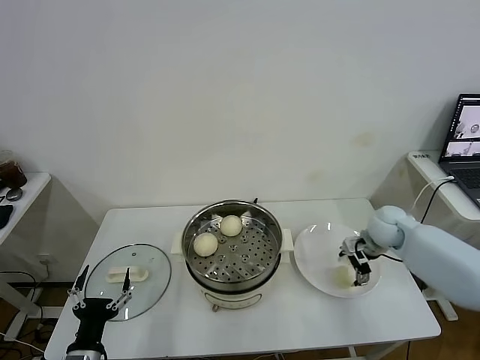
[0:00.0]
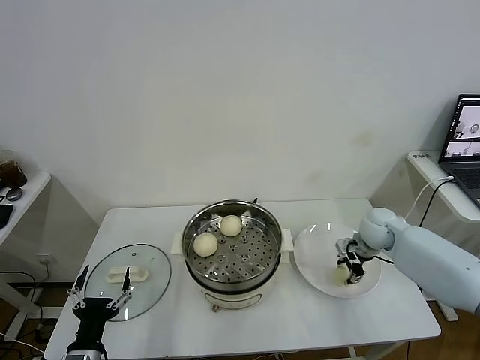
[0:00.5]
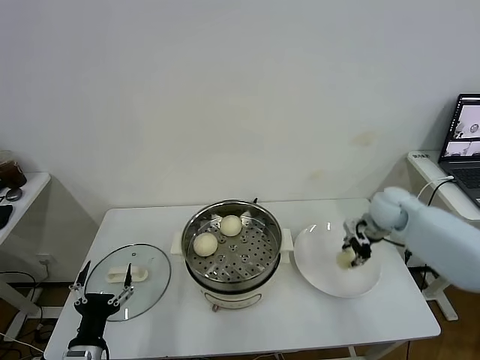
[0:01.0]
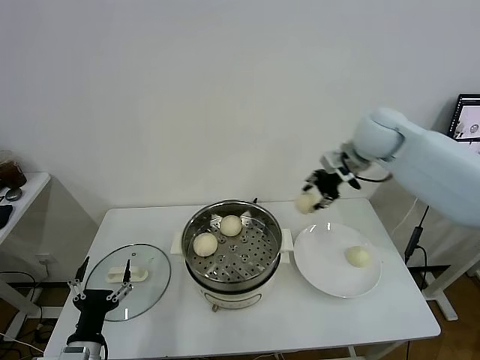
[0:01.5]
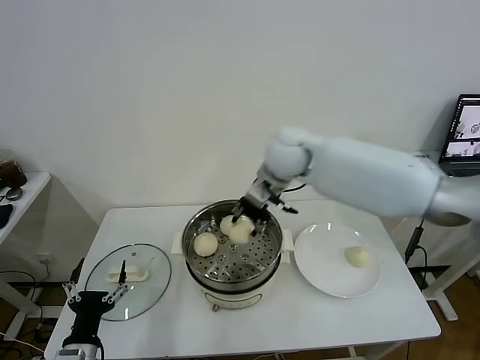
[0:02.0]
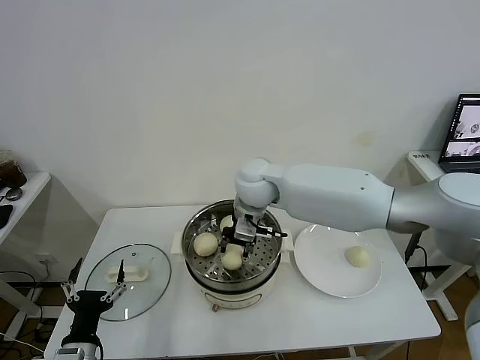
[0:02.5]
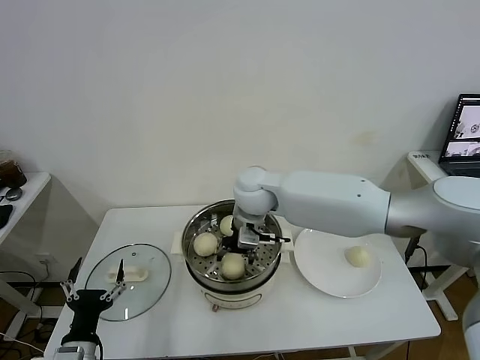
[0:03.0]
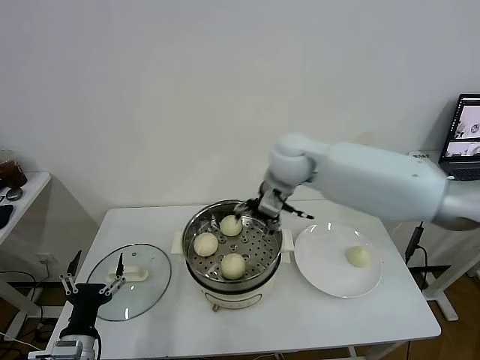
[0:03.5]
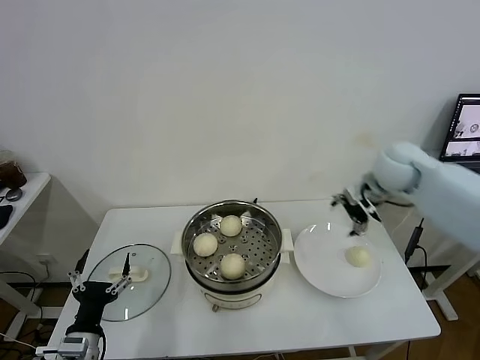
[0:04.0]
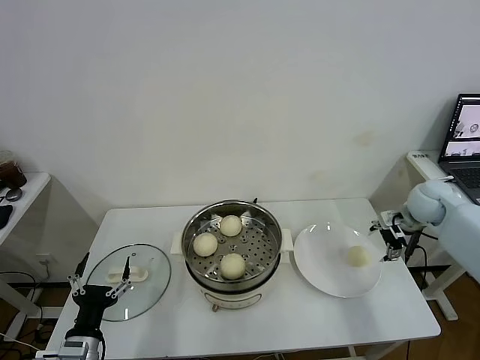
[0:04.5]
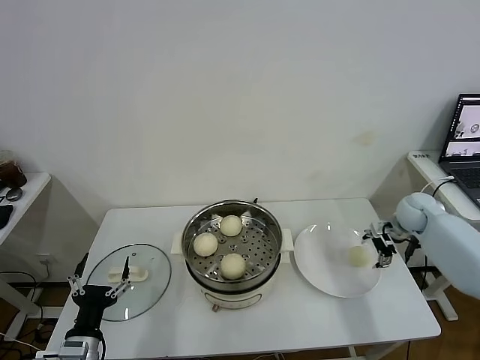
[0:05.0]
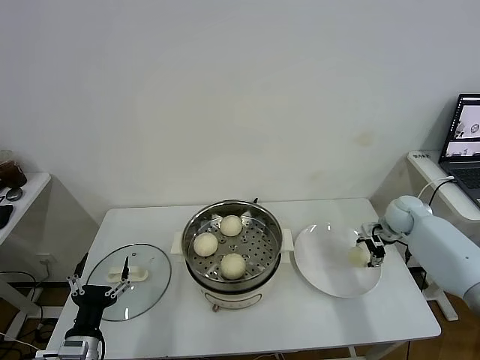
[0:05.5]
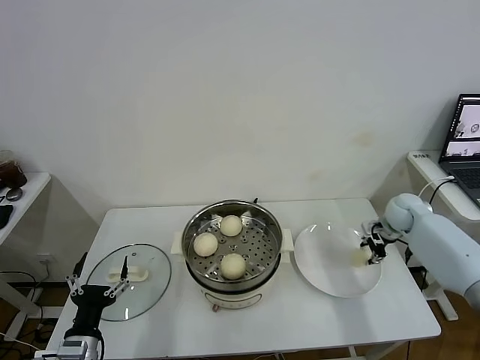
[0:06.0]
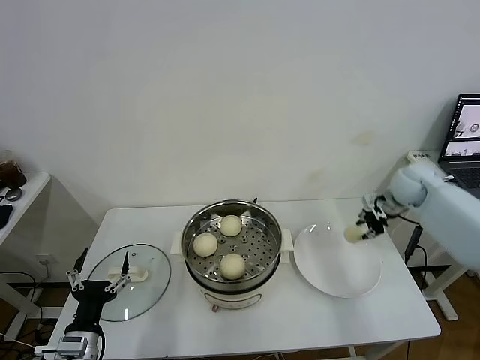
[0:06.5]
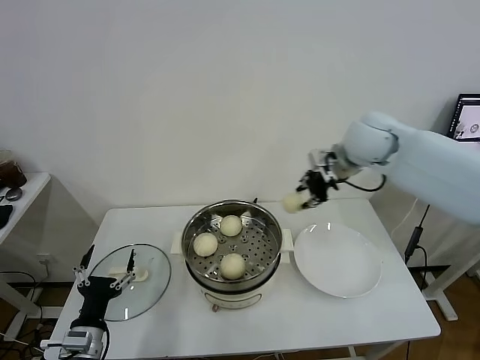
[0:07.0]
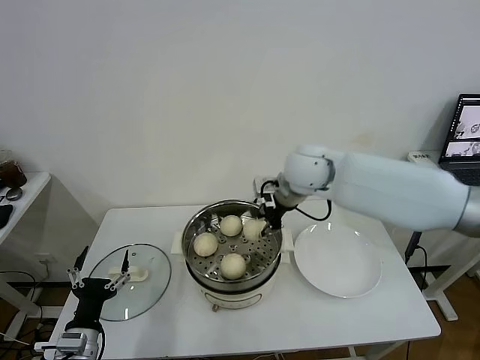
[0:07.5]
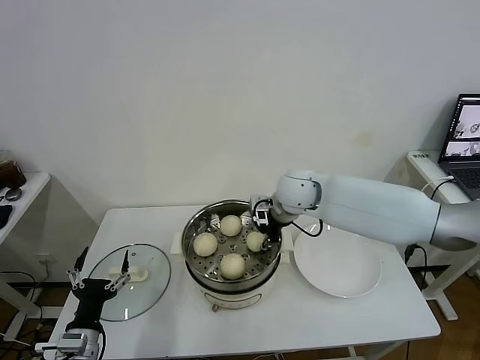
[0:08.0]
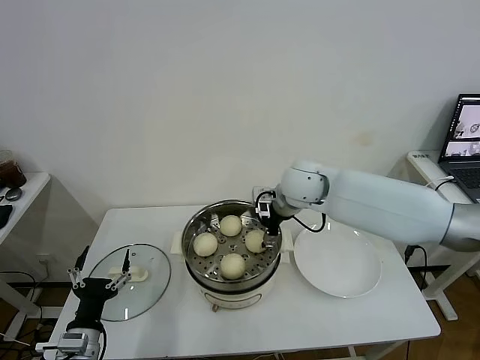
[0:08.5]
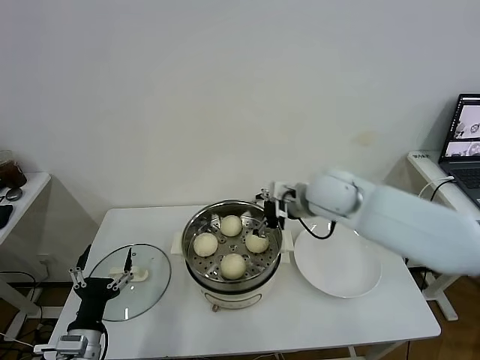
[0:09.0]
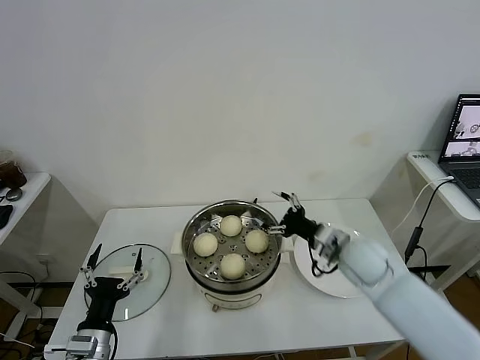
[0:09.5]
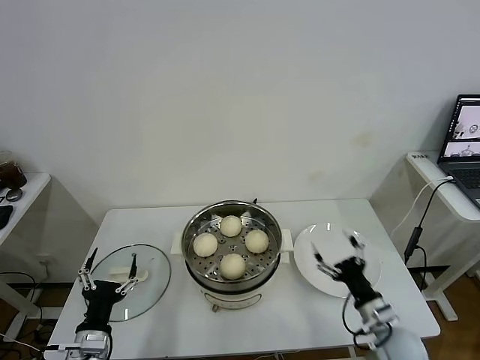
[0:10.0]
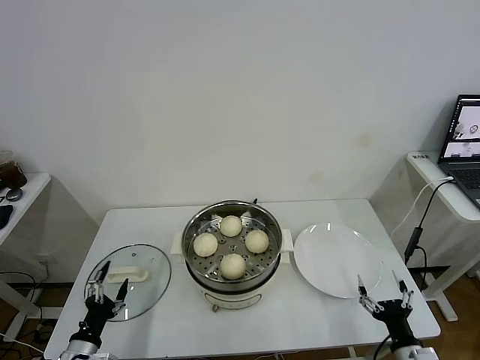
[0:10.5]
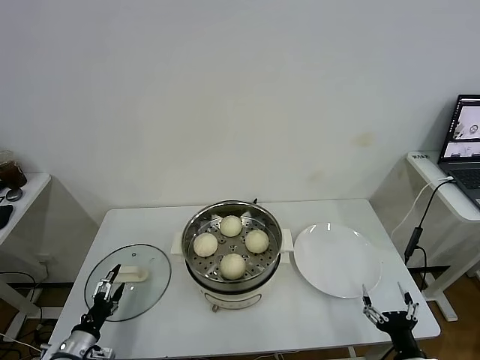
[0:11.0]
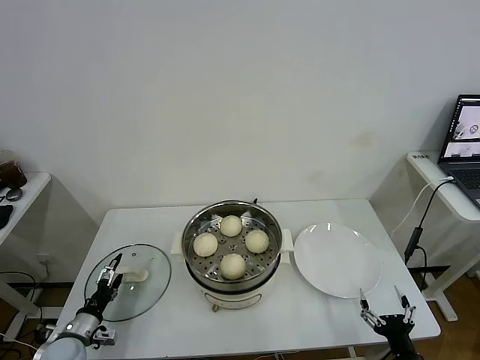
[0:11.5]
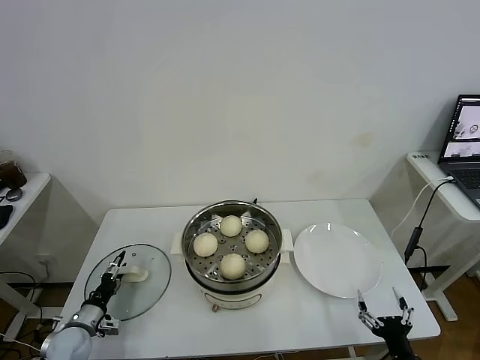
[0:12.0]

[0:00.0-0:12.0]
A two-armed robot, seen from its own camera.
Task of the whole recording: take steamed baozi put them in steamer.
Step, 0:01.0 to 0:03.0: Place the baozi on the steamer with right gripper.
Step, 0:03.5 to 0:05.5: Grasp the baozi in the plate with right gripper.
Step, 0:06.5 to 0:08.5: Place the baozi on the steamer with right gripper.
0:00.0 to 0:02.0: The right gripper travels to the left and upward by some 35 cm, and closes.
0:02.0 to 0:04.0: The right gripper goes about 25 cm to the right, and opens.
0:04.0 to 0:06.0: The right gripper moves downward and to the right, some 20 cm, and closes.
0:06.0 to 0:08.0: The right gripper travels to the left by some 30 cm.
0:08.0 to 0:10.0: The right gripper travels backward, downward and to the right by approximately 40 cm, and opens its fingers.
0:10.0 to 0:12.0: The right gripper is displaced backward by approximately 15 cm, while the left gripper heads to the left, downward and forward, covering about 20 cm.

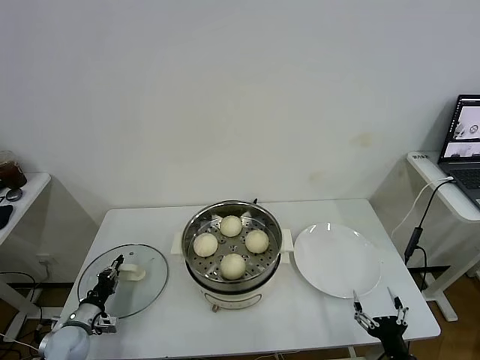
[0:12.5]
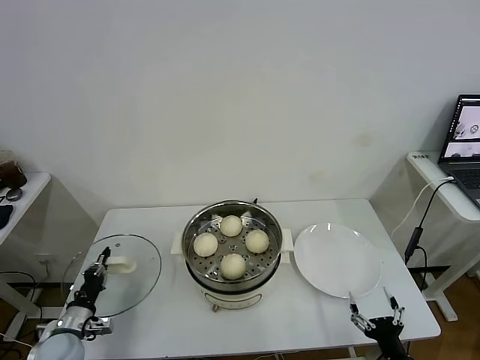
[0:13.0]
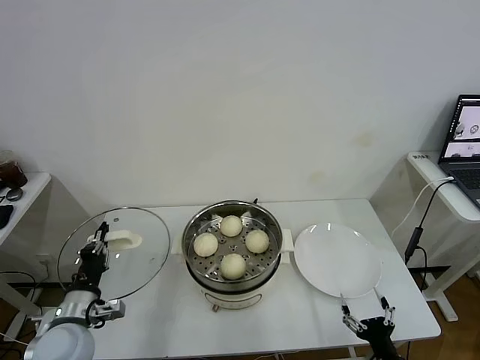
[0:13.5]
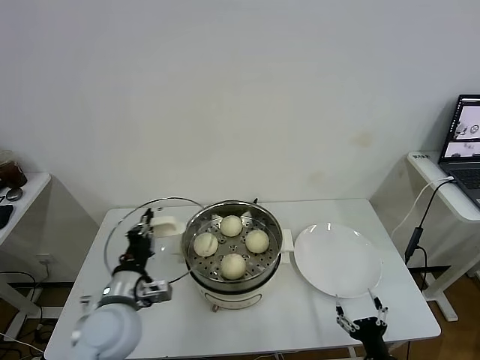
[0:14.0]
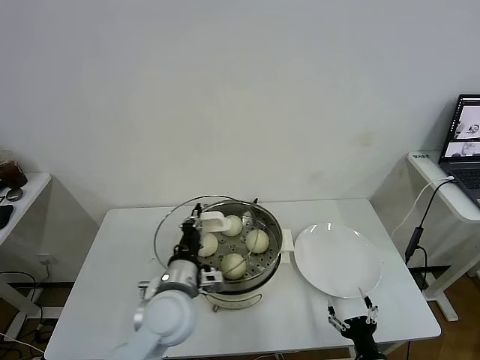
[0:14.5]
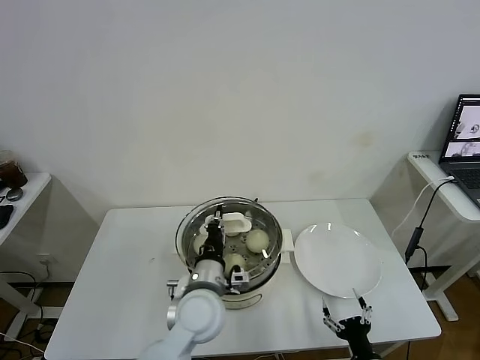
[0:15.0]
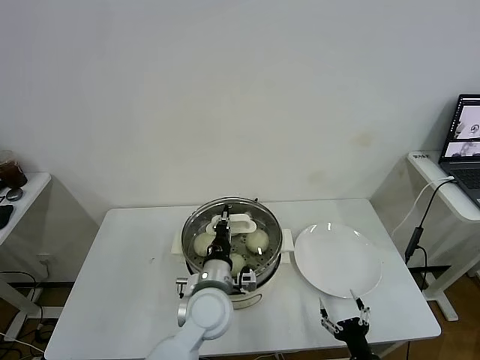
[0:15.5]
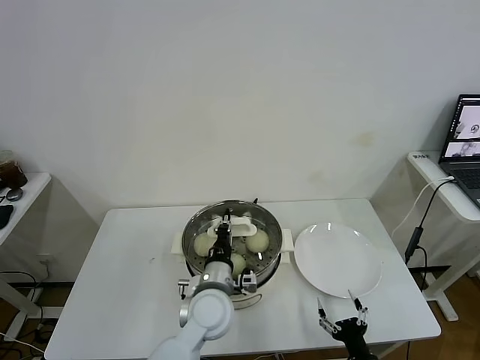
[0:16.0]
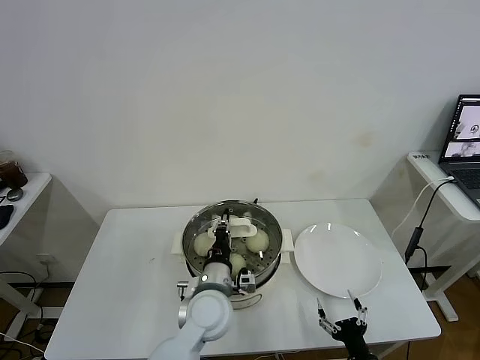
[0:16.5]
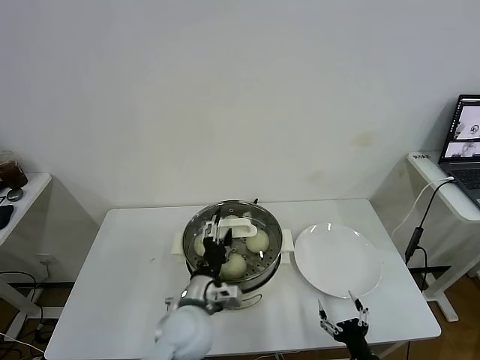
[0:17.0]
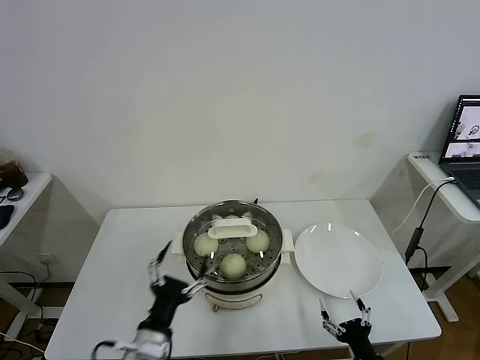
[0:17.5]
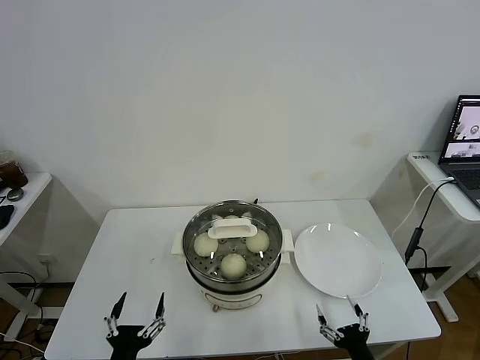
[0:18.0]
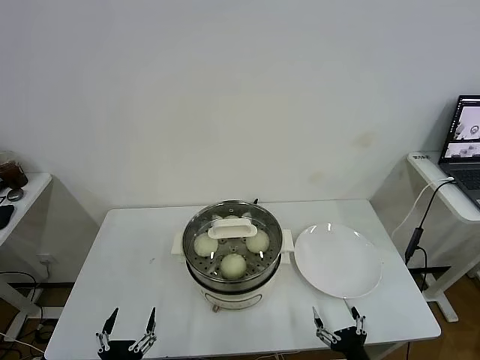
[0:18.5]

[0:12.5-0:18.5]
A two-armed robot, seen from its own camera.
Task of the whole recording: take steamed baozi put them in steamer.
Step, 0:13.0 to 0:16.5: Place the pot lid on the steamer with left gripper.
0:12.5 to 0:14.5: The left gripper is displaced to the right and upward by about 35 cm; the right gripper moves about 5 cm.
0:14.5 to 0:16.5: The left gripper heads to the right, covering some 10 cm.
0:16.5 to 0:18.5: The left gripper moves backward and to the left, some 30 cm, and opens.

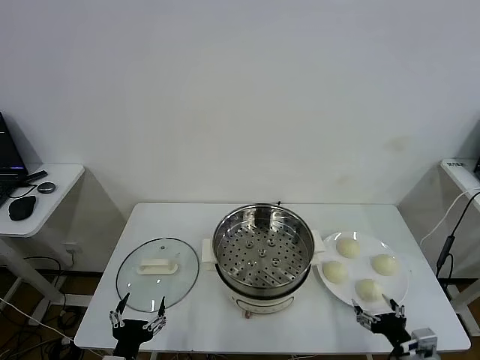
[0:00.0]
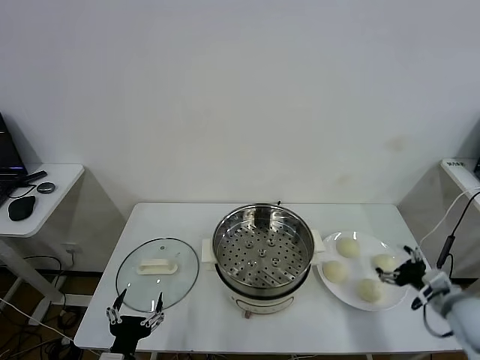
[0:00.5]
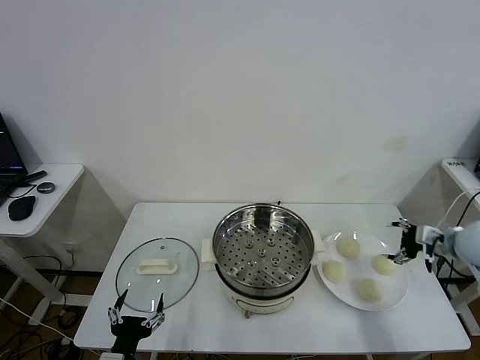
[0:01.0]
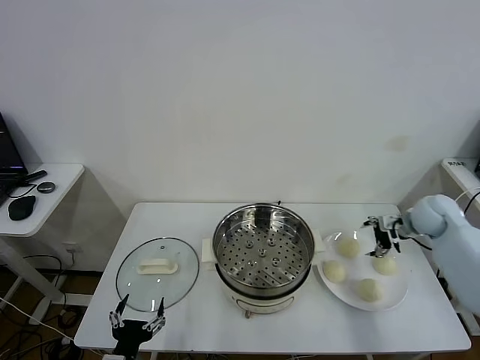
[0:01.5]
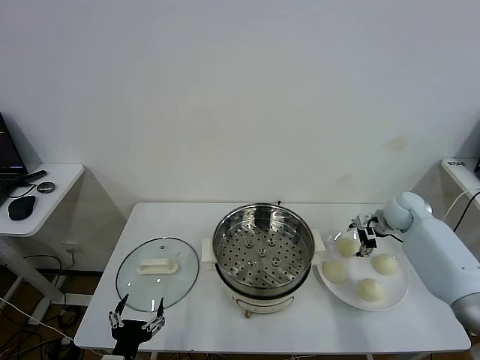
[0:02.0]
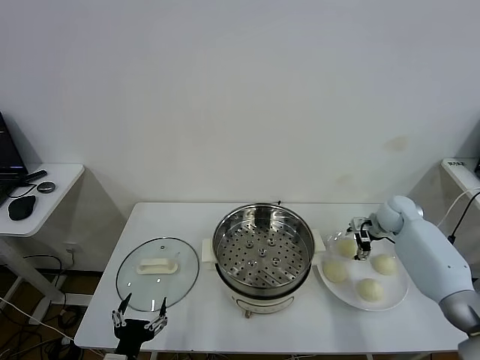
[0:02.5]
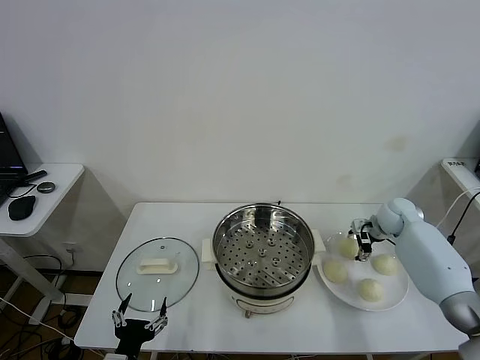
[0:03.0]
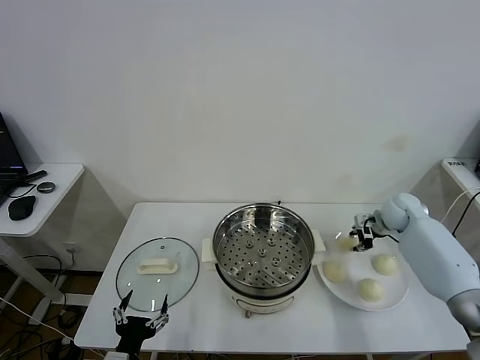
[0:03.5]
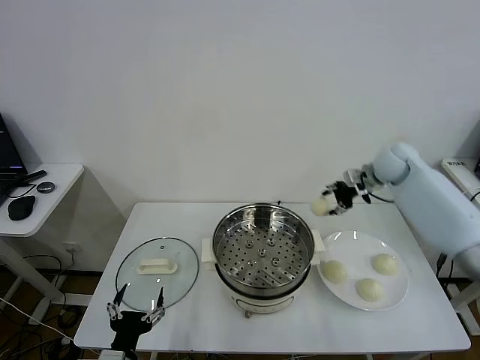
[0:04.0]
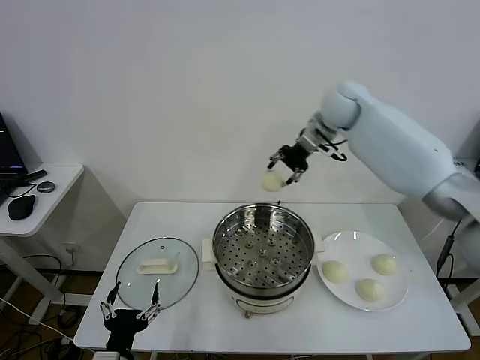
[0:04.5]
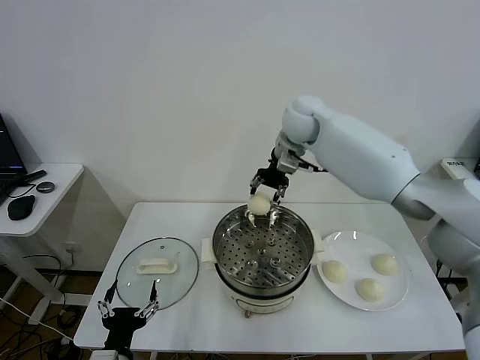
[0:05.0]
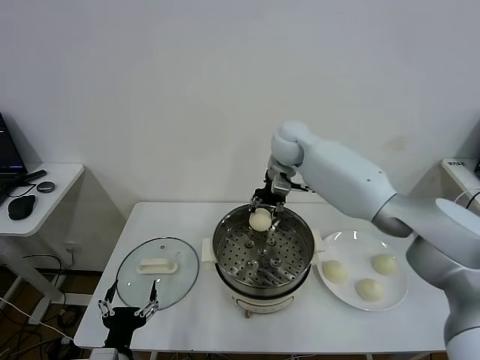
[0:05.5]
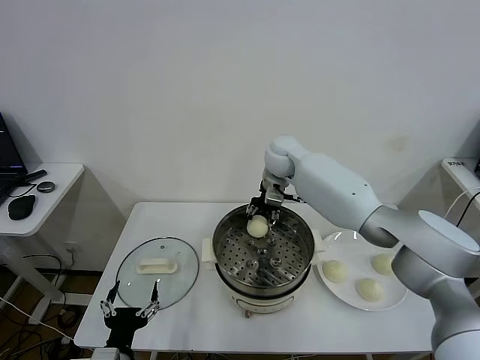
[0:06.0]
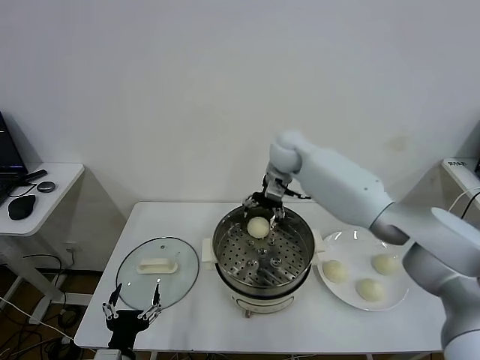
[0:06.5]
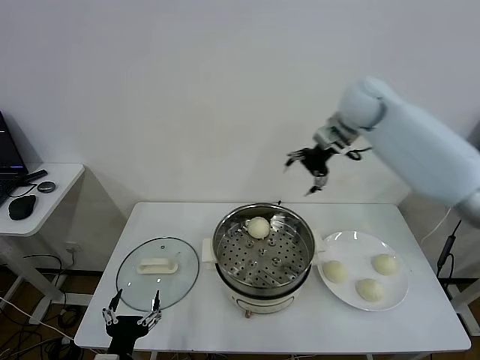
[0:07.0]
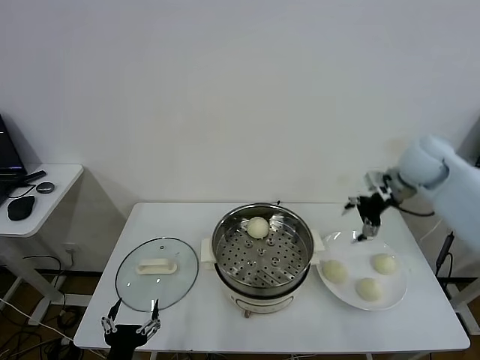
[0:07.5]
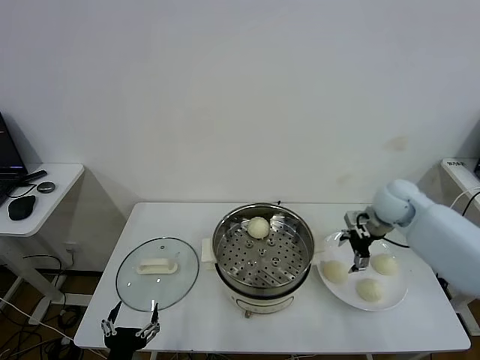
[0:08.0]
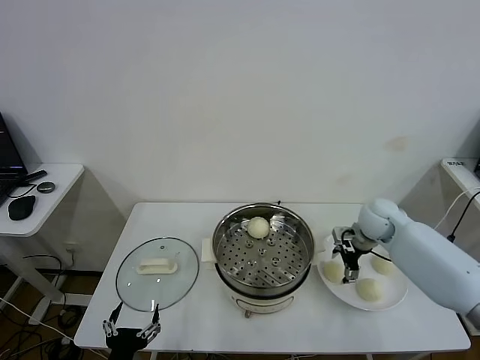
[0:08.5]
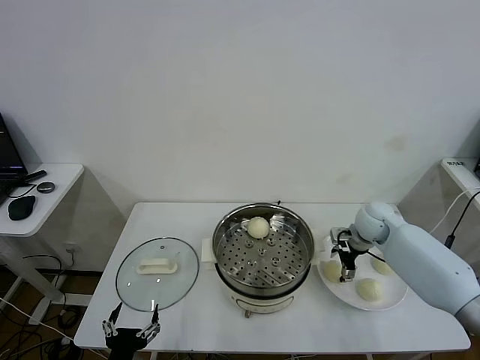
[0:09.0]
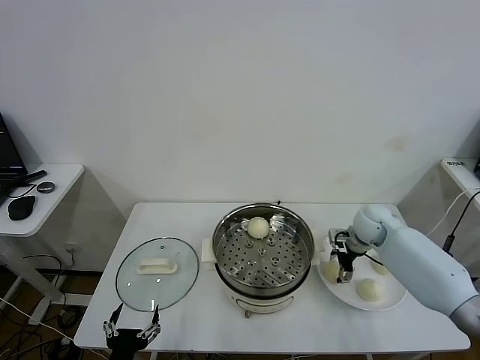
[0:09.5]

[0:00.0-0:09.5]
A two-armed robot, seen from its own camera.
Task of the whole recording: take steamed baozi put them in steamer.
Step, 0:00.0 to 0:03.0: Grasp the baozi in the plate with right gripper.
Step, 0:03.5 to 0:06.5: Place the baozi on the steamer with right gripper.
0:02.0 to 0:04.0: The right gripper travels upward, to the left and forward by some 15 cm, and closes its fingers.
0:04.0 to 0:05.5: The right gripper goes roughly 25 cm to the left.
0:05.5 to 0:07.5: The right gripper shifts approximately 25 cm to the right, and opens.
0:07.5 to 0:09.5: The right gripper shifts roughly 20 cm downward.
